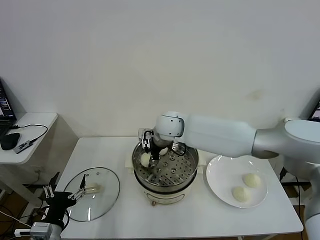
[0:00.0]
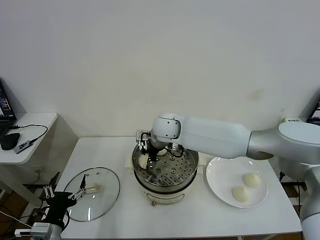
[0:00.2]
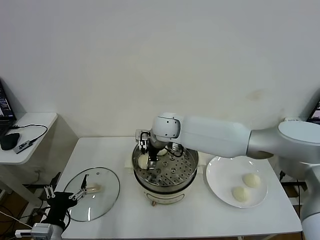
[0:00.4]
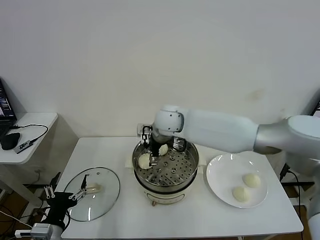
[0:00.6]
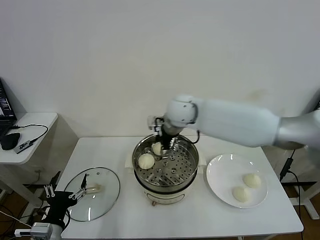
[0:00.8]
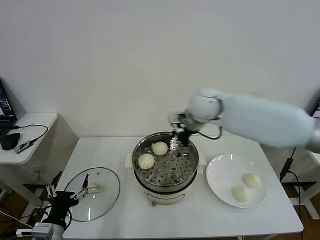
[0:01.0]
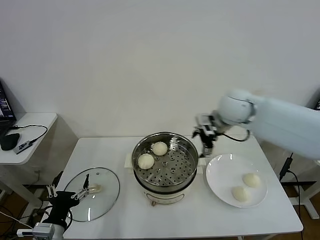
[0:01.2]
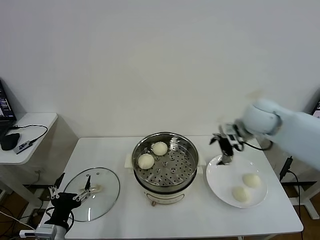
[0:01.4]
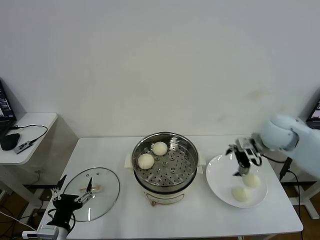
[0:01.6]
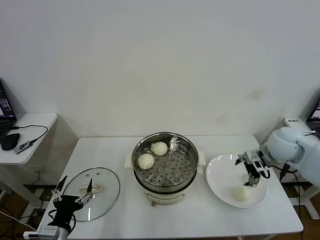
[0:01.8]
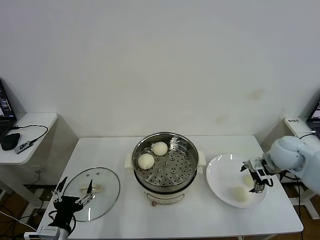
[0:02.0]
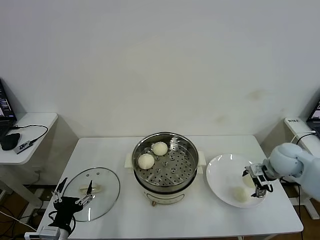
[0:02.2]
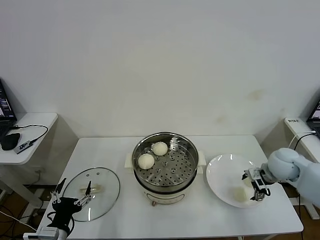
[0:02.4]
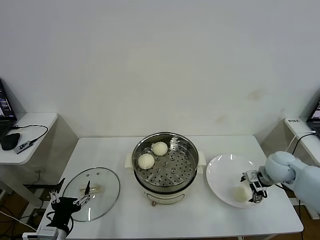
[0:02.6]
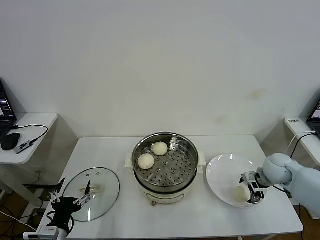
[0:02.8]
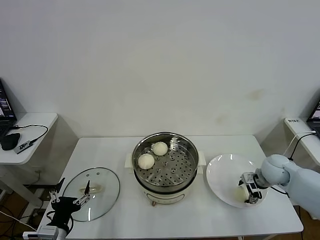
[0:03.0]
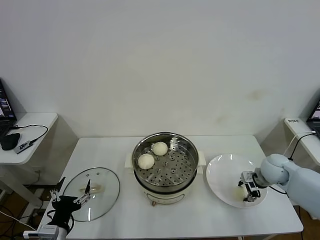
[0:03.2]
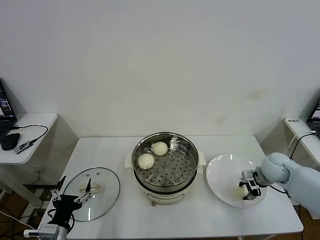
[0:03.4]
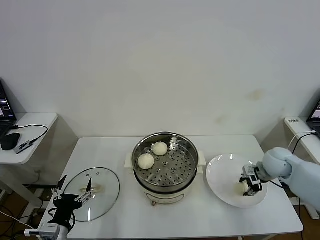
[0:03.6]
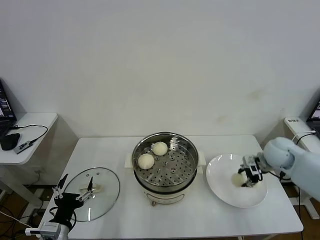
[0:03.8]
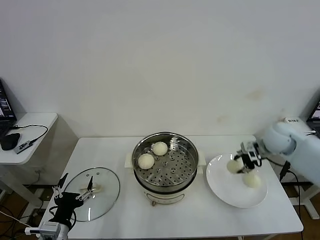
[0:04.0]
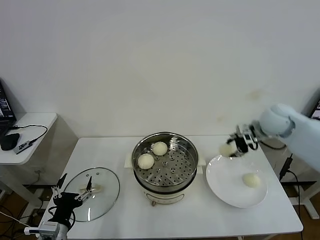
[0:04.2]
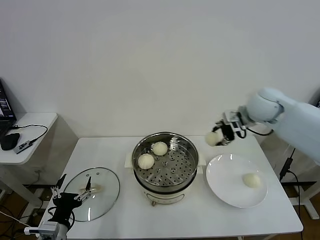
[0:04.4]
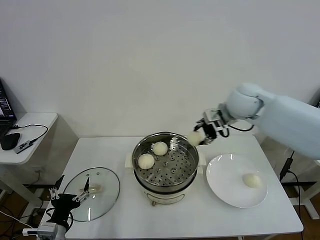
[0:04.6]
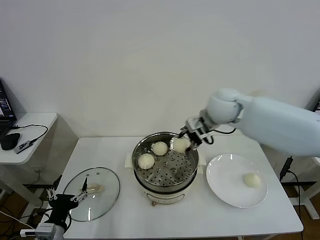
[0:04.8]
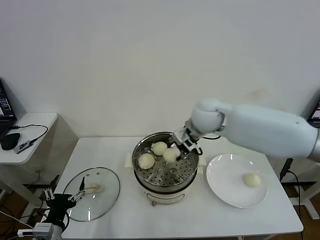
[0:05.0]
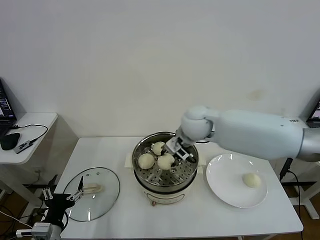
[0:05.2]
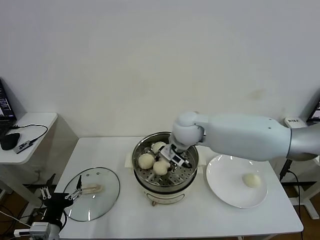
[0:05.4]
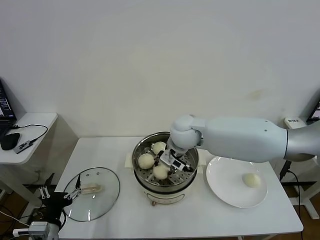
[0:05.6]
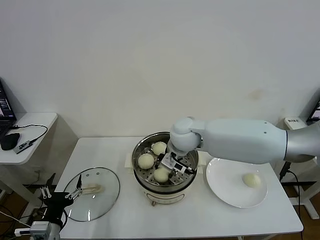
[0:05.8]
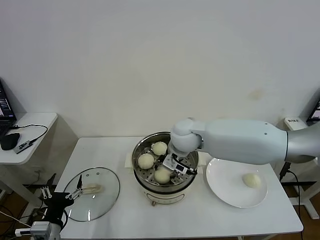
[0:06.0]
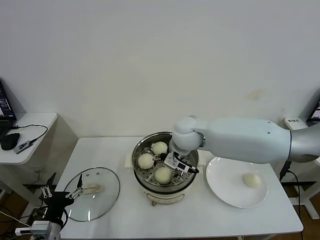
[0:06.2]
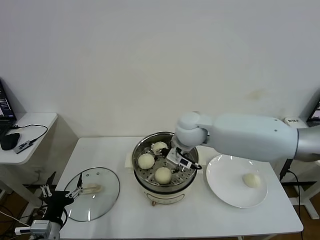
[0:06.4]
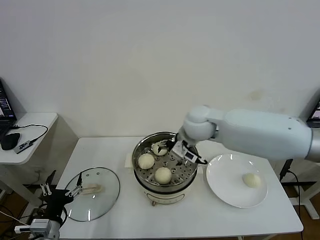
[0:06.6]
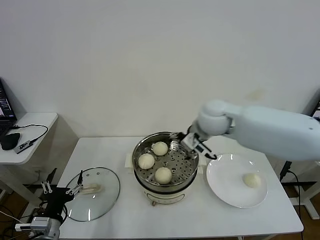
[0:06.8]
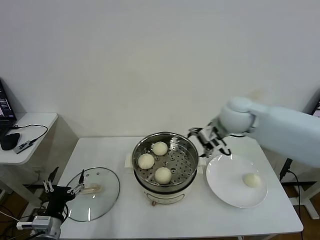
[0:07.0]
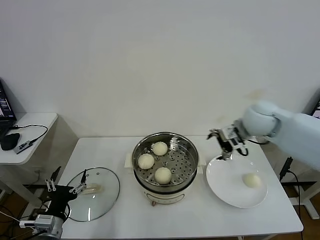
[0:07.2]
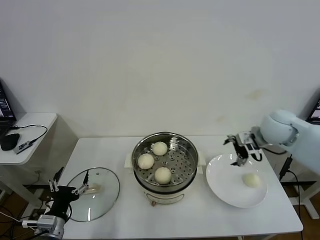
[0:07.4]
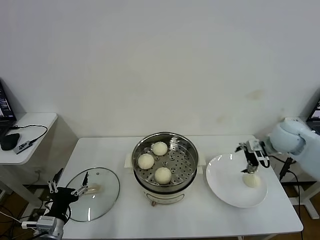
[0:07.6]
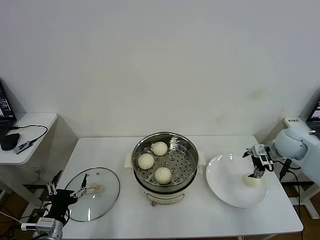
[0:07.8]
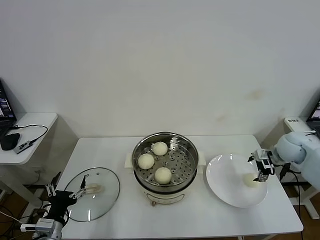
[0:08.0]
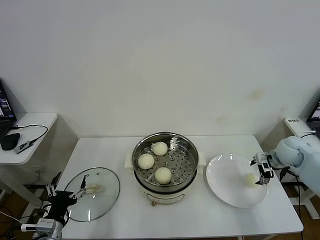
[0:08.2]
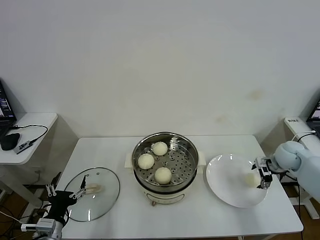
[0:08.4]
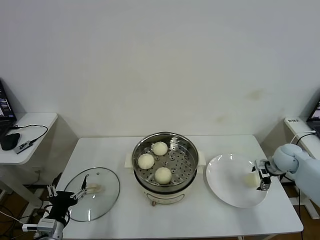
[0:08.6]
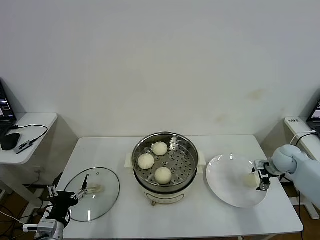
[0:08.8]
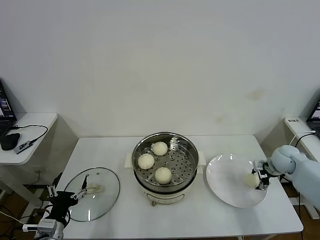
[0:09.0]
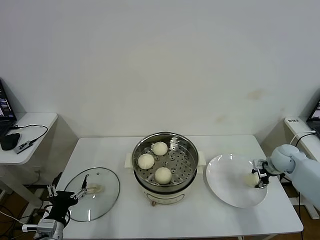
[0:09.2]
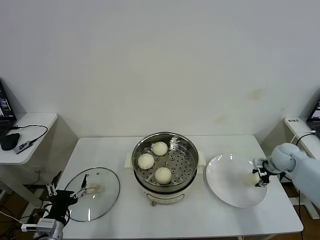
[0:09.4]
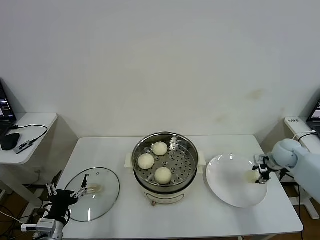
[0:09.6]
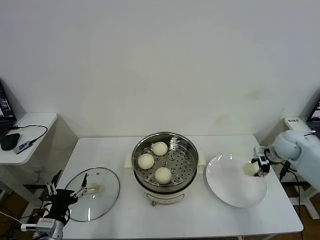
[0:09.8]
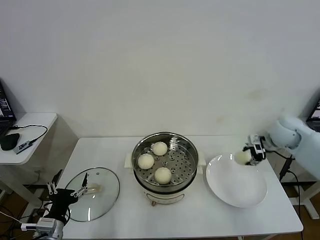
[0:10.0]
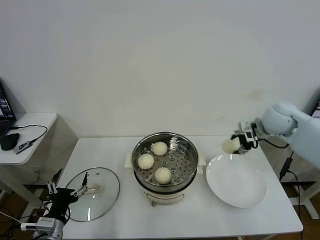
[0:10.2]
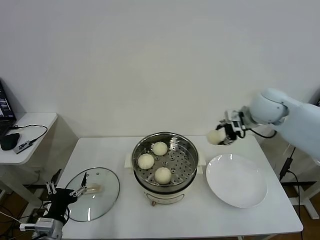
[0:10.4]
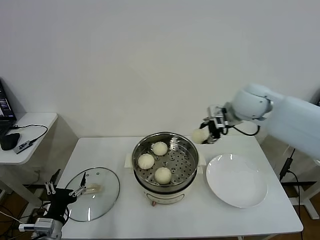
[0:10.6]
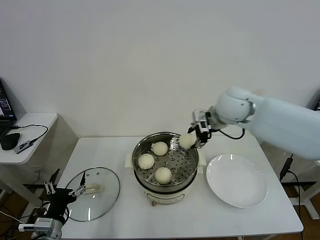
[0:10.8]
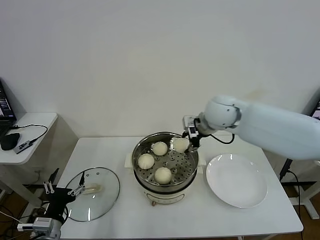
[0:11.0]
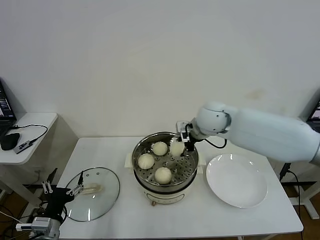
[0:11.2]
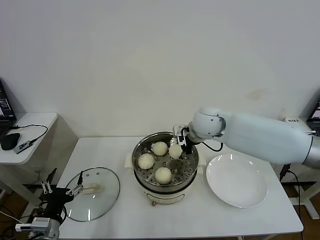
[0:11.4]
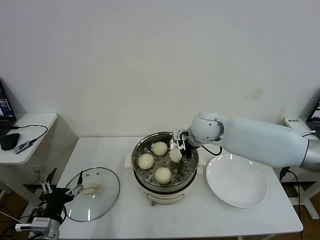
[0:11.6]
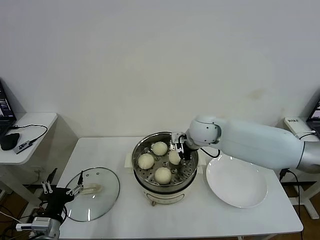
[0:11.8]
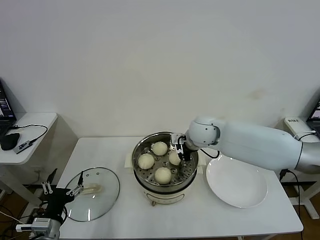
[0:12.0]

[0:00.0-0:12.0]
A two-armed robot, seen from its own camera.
Task of the whole recording: take steamed baozi put them in steamer then cover it.
Step, 0:00.6 to 0:03.4: Grasp the baozi in the plate with right gripper.
Step, 0:03.6 to 0:06.0: Place the baozi on the steamer with right gripper.
Step, 0:06.4 to 0:09.4: Grasp the baozi in the plate with right gripper.
0:00.0 to 0:01.6: The right gripper heads to the right, covering about 30 cm, and opens.
0:01.6 to 0:03.0: The right gripper is displaced downward by approximately 15 cm.
0:03.0 to 0:04.4: The right gripper moves upward and to the left, about 20 cm, and closes its fingers.
0:04.4 to 0:06.0: The right gripper is displaced to the left by roughly 25 cm.
0:06.0 to 0:07.6: The right gripper moves to the right, some 30 cm, and opens up.
0:07.6 to 0:09.0: The right gripper goes roughly 15 cm downward and to the right.
0:09.0 to 0:10.4: The right gripper goes roughly 25 cm upward and to the left, and closes up.
0:10.4 to 0:12.0: The right gripper moves to the left and downward, about 20 cm.

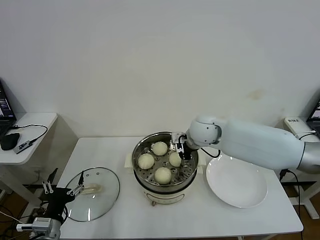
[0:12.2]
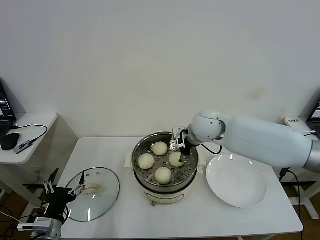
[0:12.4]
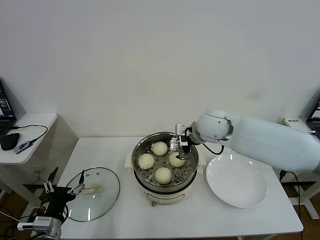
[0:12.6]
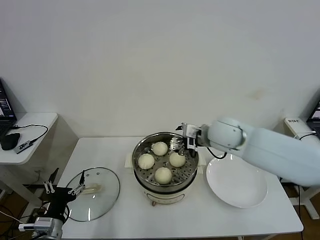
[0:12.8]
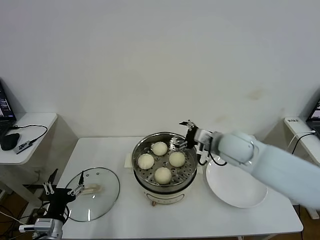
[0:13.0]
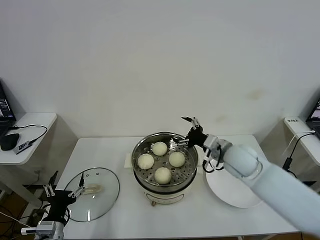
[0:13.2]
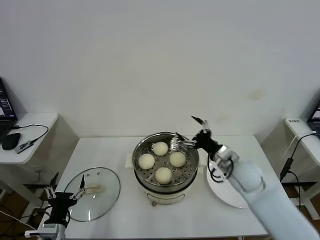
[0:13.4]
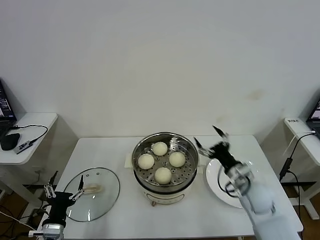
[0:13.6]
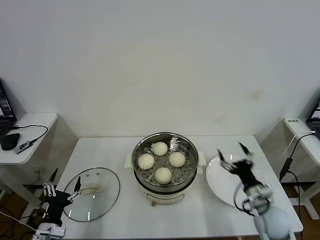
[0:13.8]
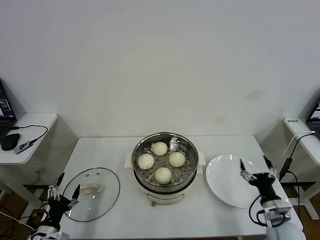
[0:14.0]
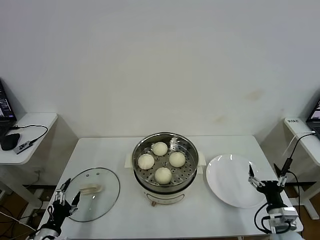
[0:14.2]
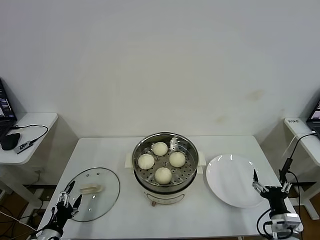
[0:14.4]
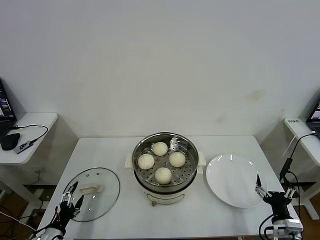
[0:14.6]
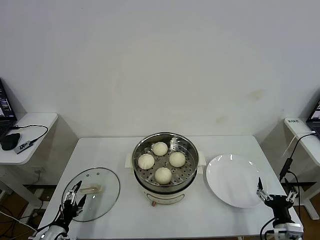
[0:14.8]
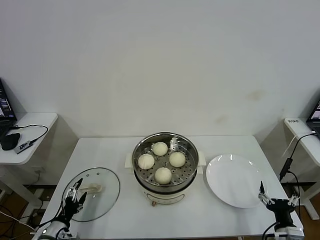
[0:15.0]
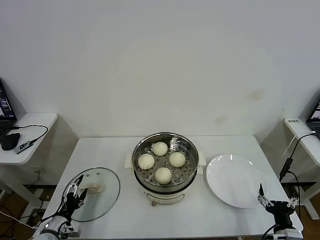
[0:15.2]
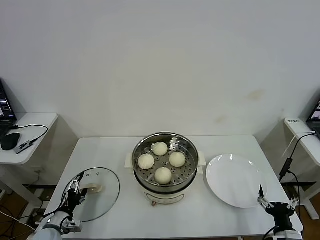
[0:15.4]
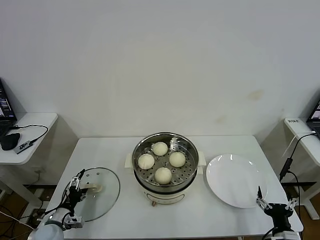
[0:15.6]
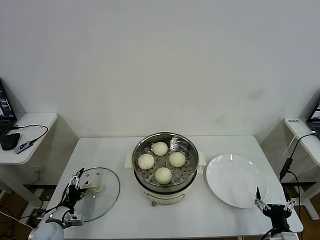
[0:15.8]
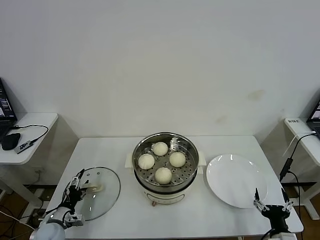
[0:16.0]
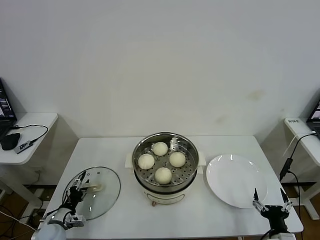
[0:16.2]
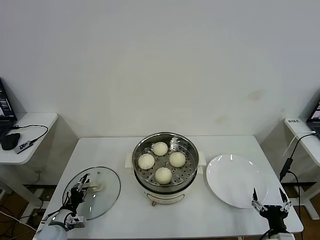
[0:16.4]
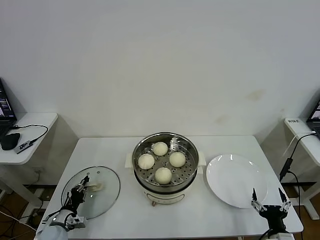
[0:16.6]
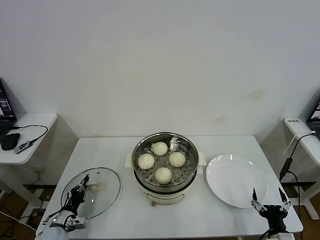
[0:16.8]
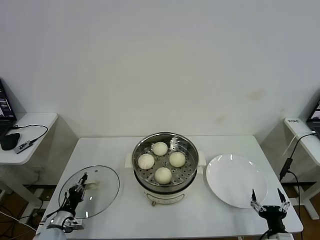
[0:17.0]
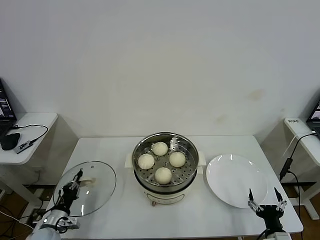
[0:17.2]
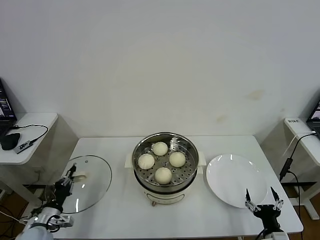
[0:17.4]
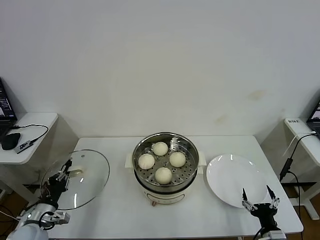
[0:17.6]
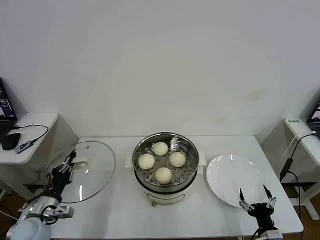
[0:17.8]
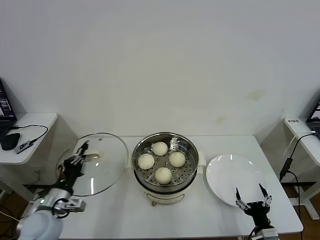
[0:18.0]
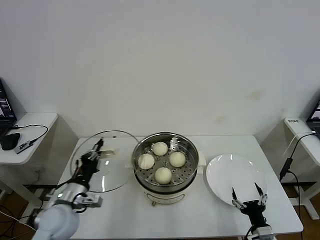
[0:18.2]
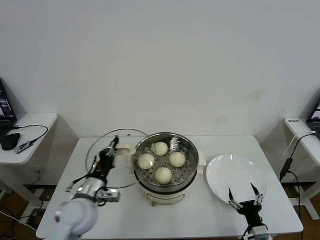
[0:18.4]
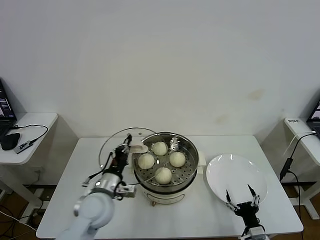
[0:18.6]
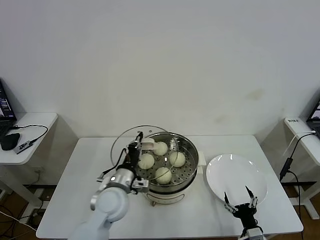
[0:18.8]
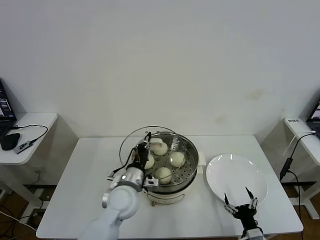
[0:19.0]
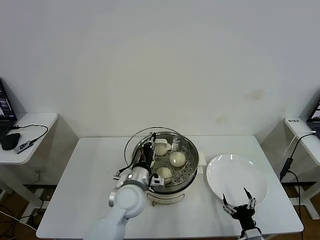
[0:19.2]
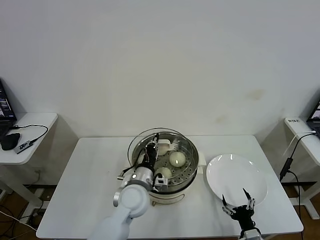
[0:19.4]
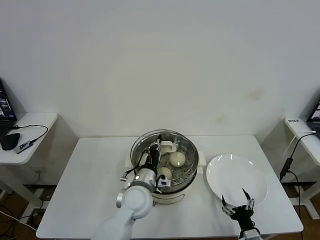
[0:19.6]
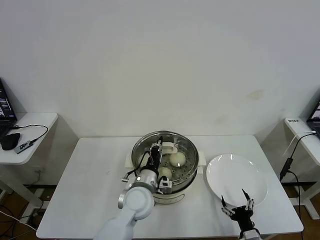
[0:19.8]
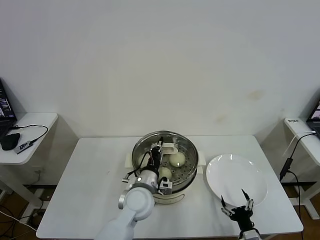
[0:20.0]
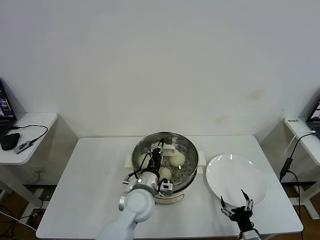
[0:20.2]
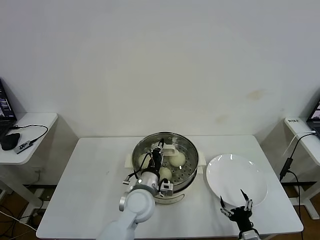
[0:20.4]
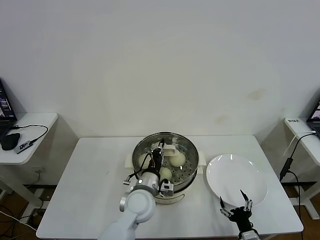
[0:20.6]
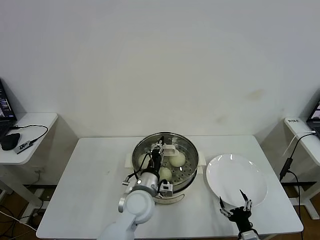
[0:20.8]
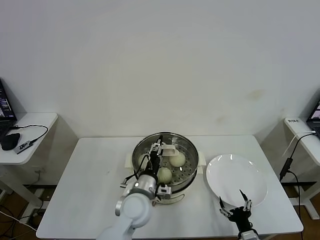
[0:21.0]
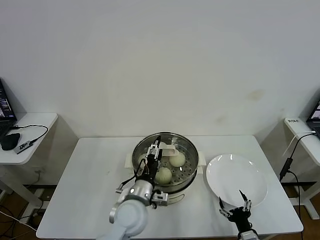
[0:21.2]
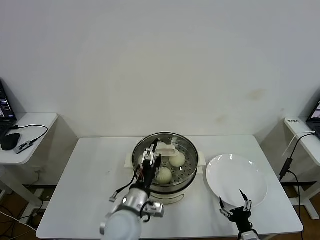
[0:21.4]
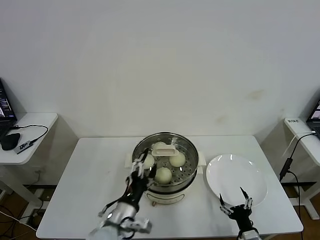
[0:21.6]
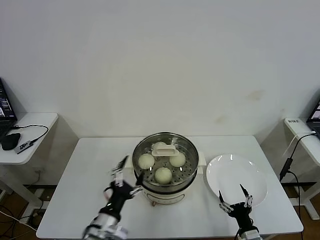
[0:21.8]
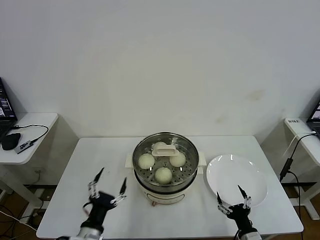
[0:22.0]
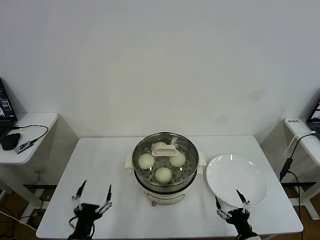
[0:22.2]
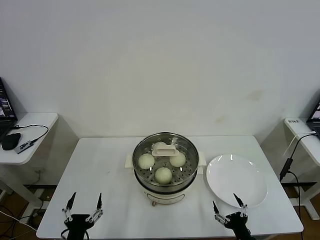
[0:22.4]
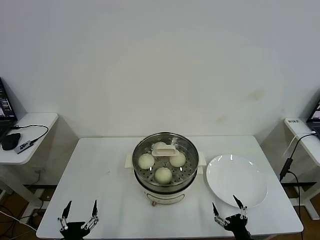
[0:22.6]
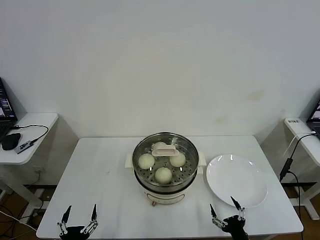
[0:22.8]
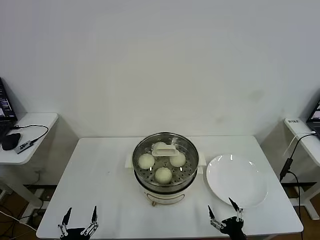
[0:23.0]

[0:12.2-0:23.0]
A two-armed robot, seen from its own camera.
Task of the whole recording: take steamed baozi put them in steamer then cover it.
Step, 0:12.4 to 0:16.8: Grasp the pot lid with left gripper.
Step, 0:17.0 to 0:21.0: Place the pot lid on the steamer with left gripper.
0:12.2 to 0:13.8: The left gripper moves downward, some 5 cm. Meanwhile the right gripper moves backward, to the right and downward, about 30 cm.
0:13.8 to 0:15.2: The right gripper shifts roughly 15 cm backward, downward and to the right; the left gripper goes approximately 5 cm downward.
0:15.2 to 0:16.8: The left gripper moves approximately 5 cm, and closes its fingers.
0:16.8 to 0:18.4: The left gripper shifts roughly 25 cm upward and to the right.
0:18.4 to 0:20.0: The left gripper moves to the right, roughly 20 cm.
0:20.0 to 0:21.4: The left gripper moves backward, roughly 5 cm, and opens up.
0:21.4 to 0:23.0: The left gripper travels backward, to the left and downward by roughly 30 cm.
